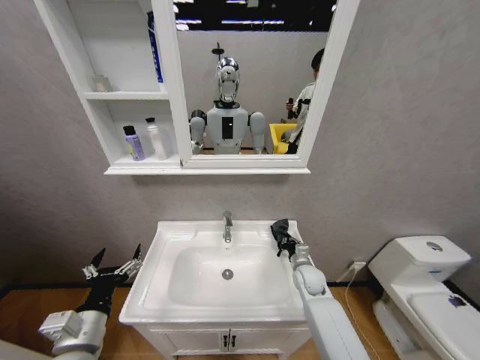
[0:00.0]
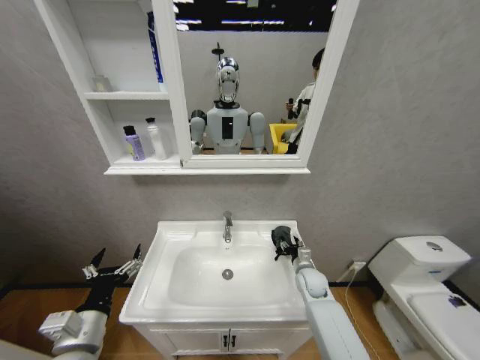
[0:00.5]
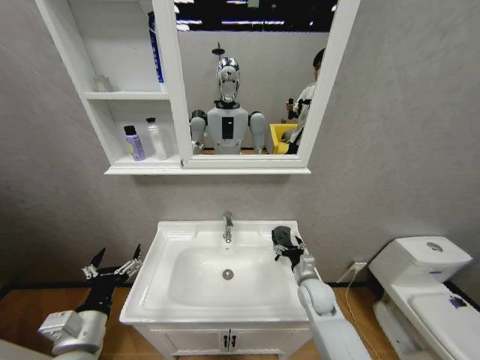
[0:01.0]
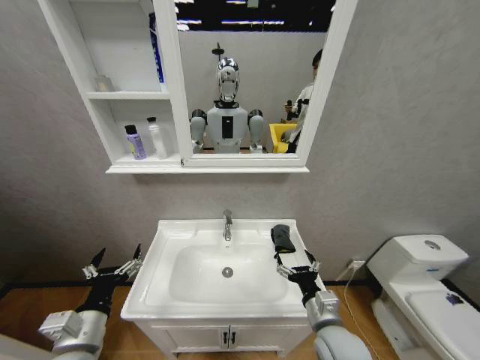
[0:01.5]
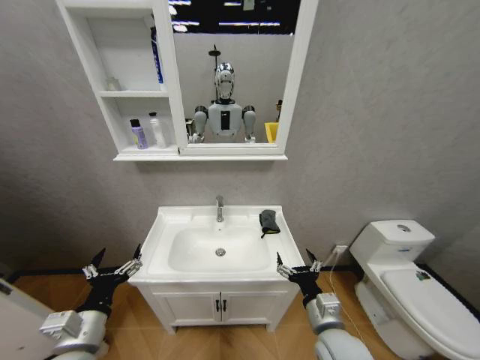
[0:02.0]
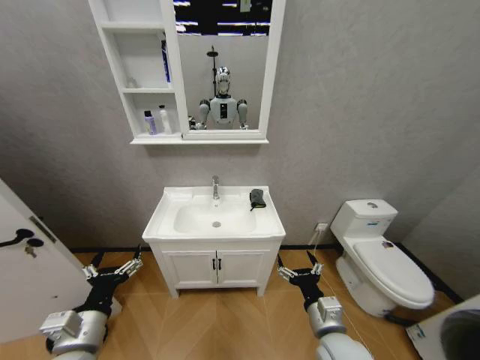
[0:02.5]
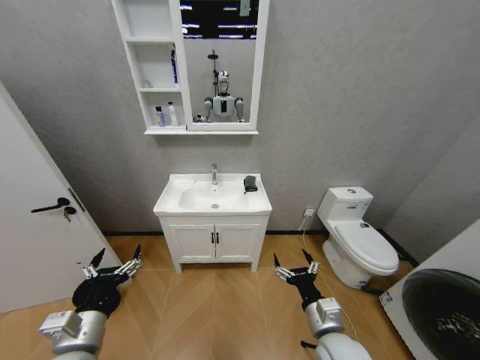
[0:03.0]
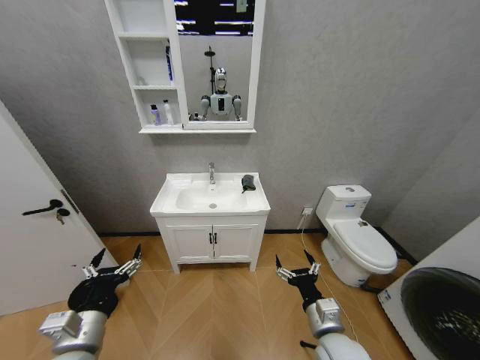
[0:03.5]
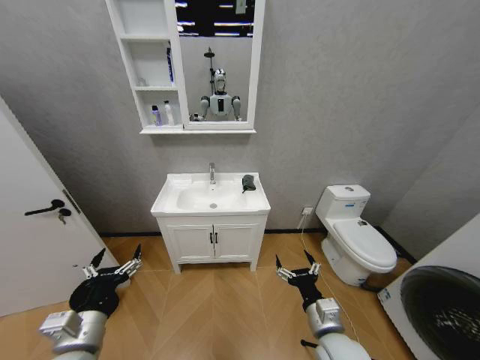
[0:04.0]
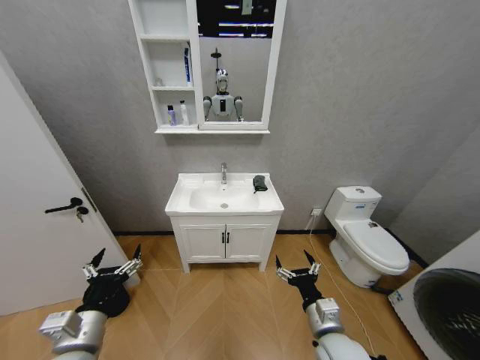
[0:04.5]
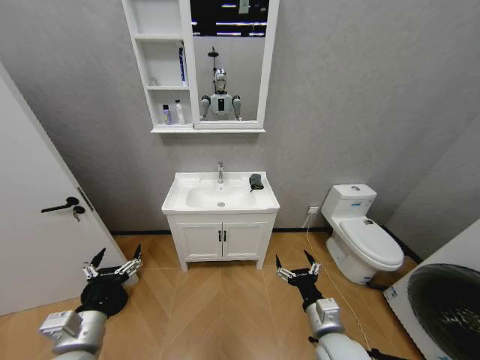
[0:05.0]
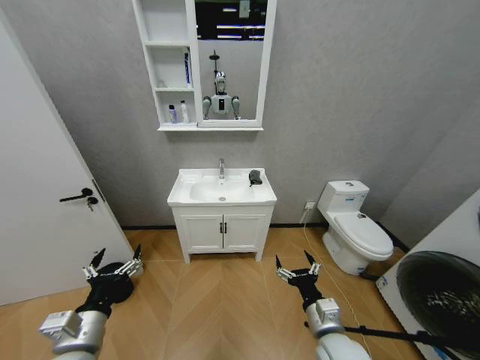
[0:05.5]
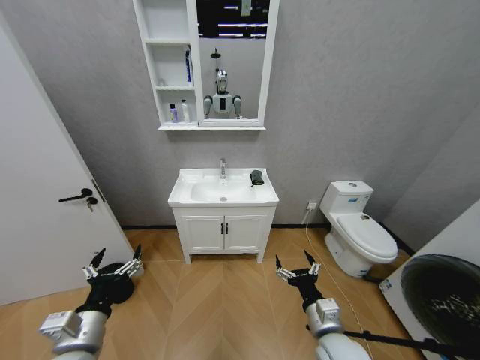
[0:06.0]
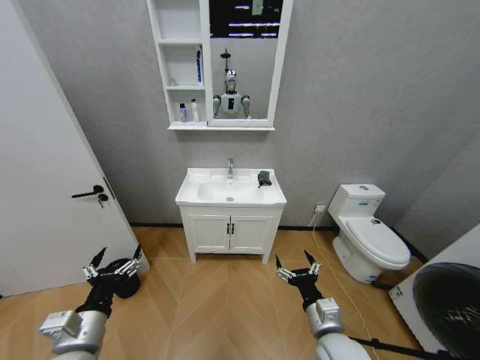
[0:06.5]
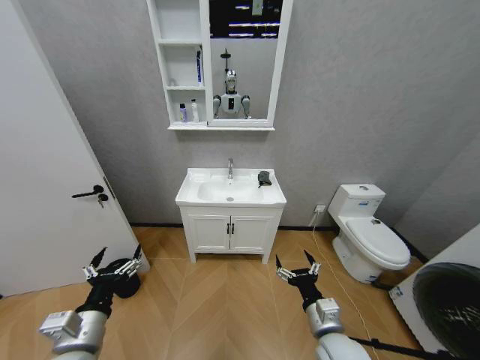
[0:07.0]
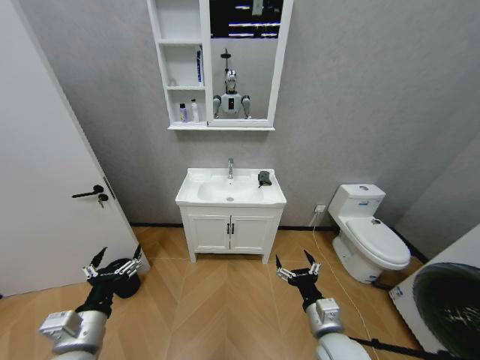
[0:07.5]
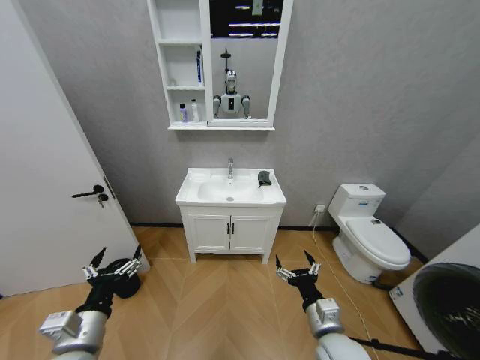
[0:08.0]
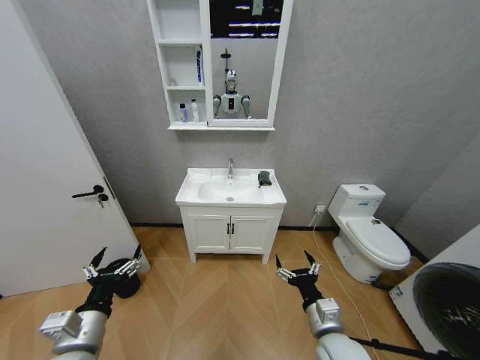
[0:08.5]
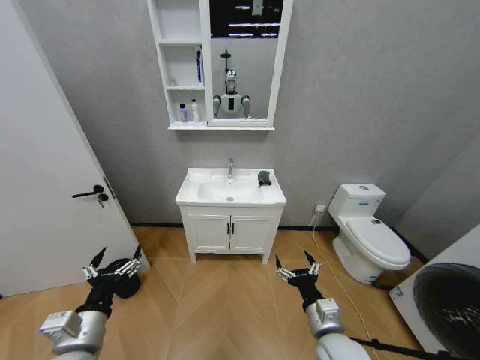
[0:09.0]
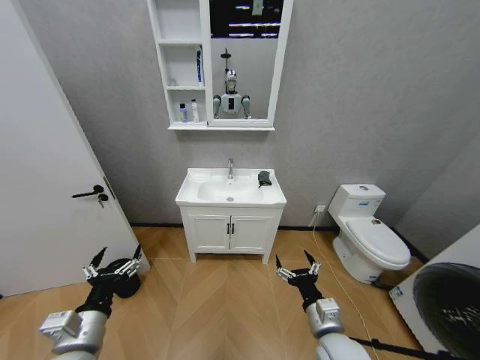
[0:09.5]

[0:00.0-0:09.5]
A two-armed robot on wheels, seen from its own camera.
Task of the whole recording: Move facial cleanser and shampoo from washbasin to cabinet, then wipe washbasin with towel.
0:00.0 to 0:02.0: The right gripper travels backward by some 20 cm, and opens its fingers.
0:05.5 to 0:09.5: Neither gripper changes place.
